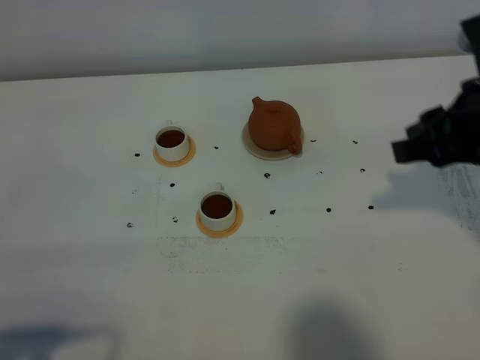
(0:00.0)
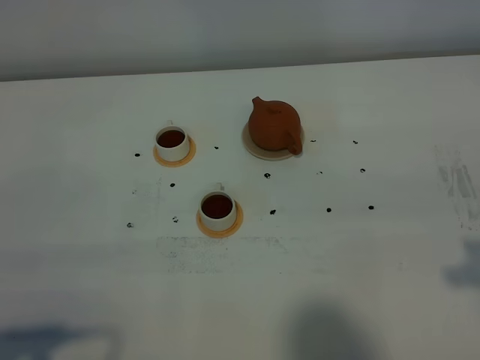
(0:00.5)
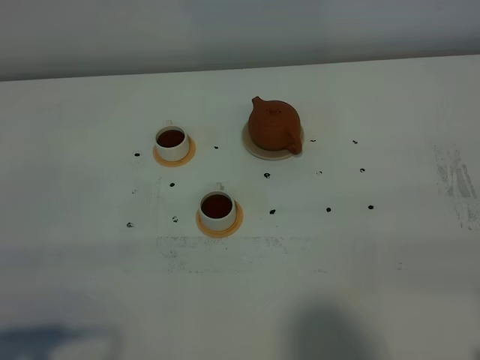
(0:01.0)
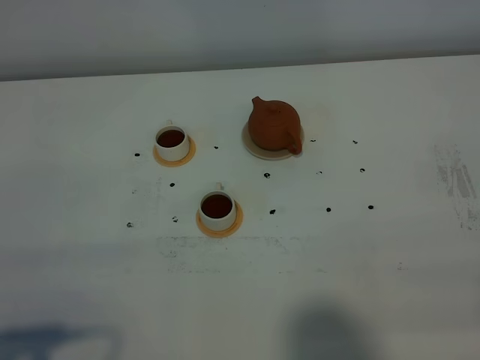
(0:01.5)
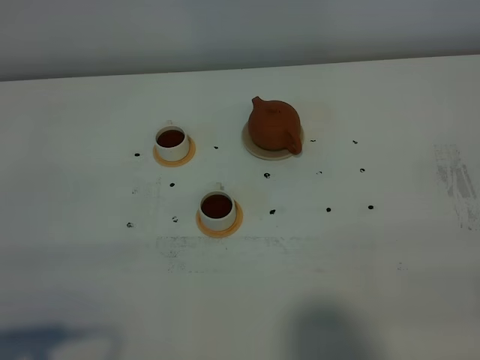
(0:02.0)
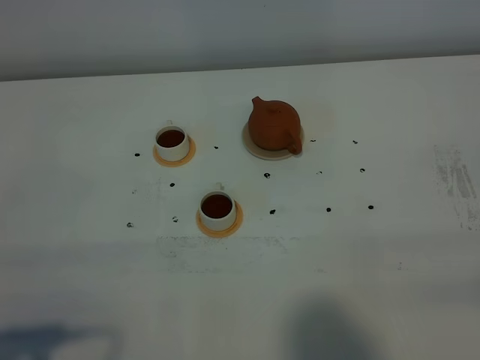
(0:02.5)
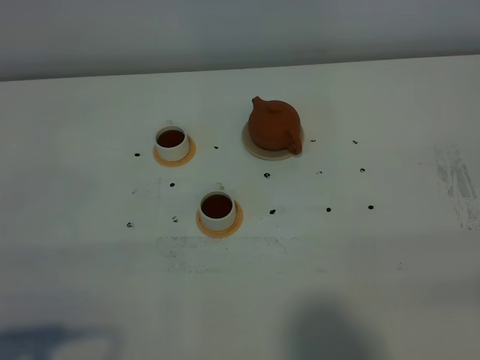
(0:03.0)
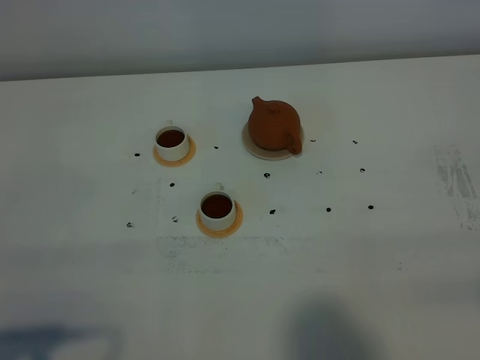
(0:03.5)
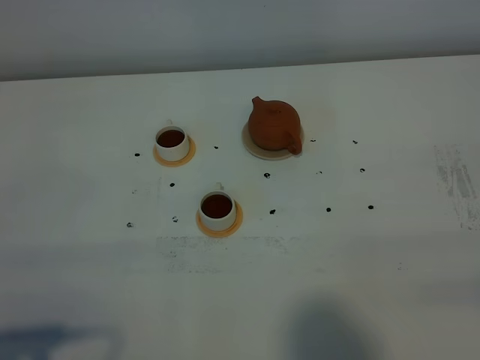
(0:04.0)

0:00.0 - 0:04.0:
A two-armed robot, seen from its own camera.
Task of the whole recording: grasp the brown teapot and pour the tea into the two white teacups one by one, put the brown teapot back in its original place.
0:00.0 - 0:02.0: The right gripper is displaced backward by roughly 25 cm, and closes.
